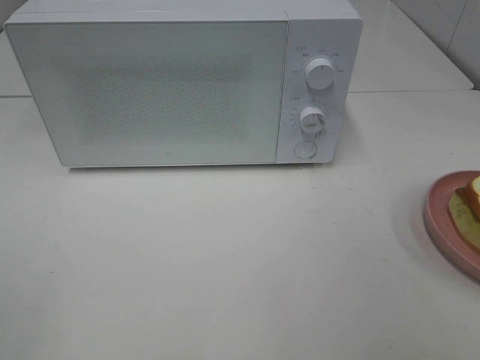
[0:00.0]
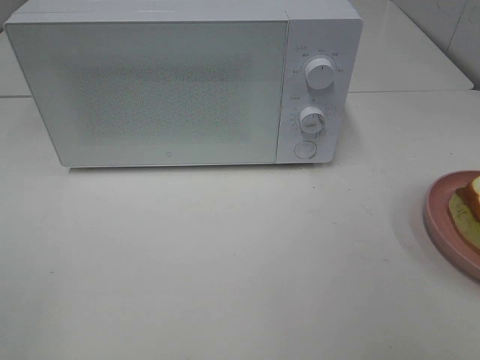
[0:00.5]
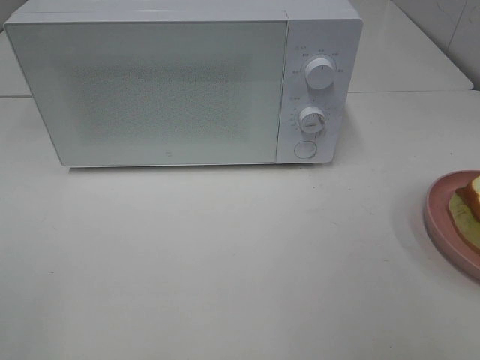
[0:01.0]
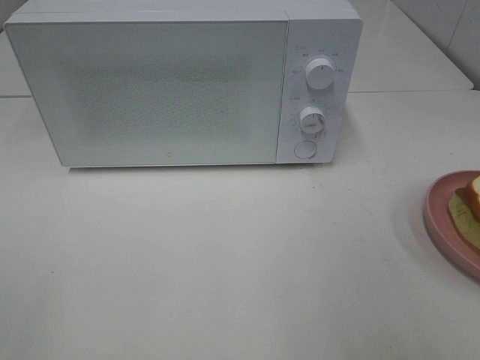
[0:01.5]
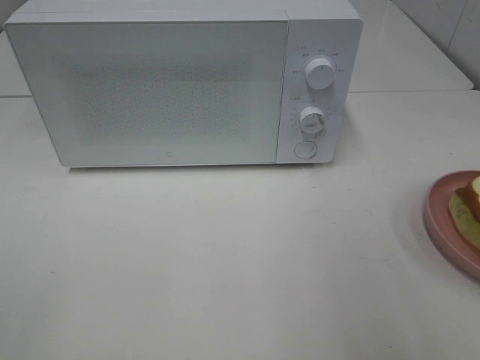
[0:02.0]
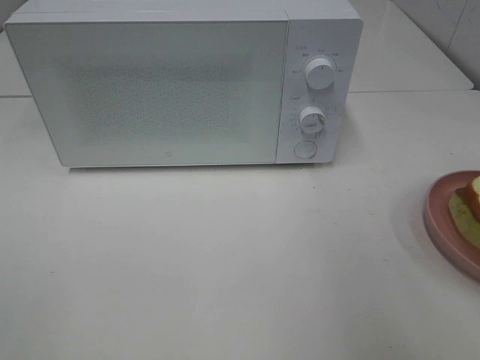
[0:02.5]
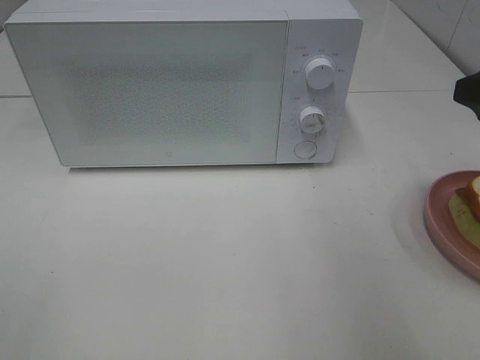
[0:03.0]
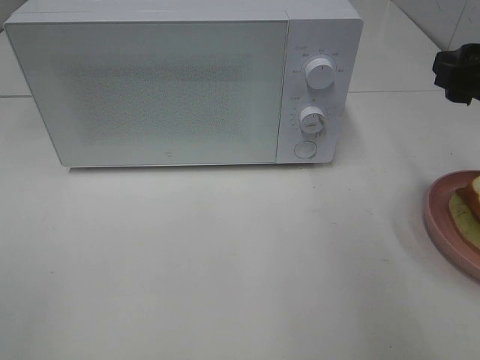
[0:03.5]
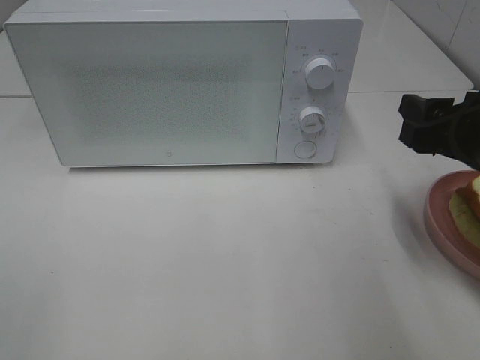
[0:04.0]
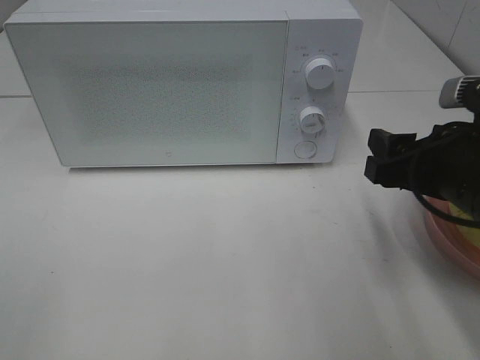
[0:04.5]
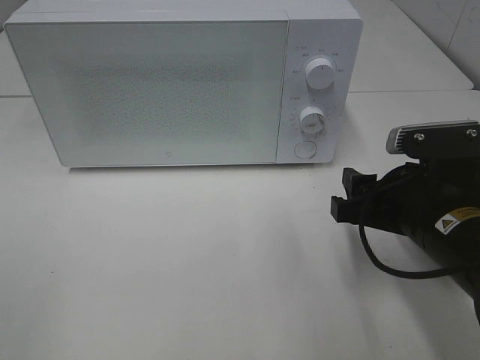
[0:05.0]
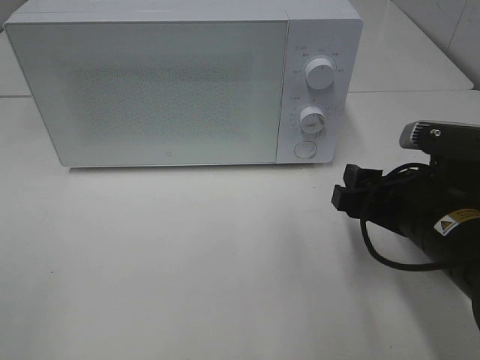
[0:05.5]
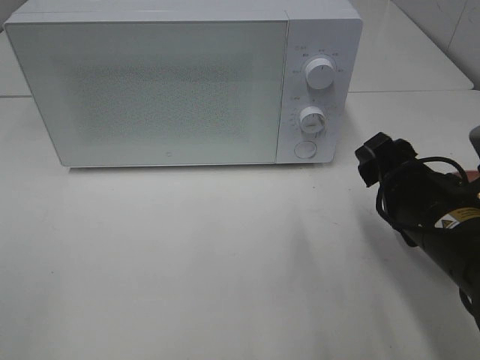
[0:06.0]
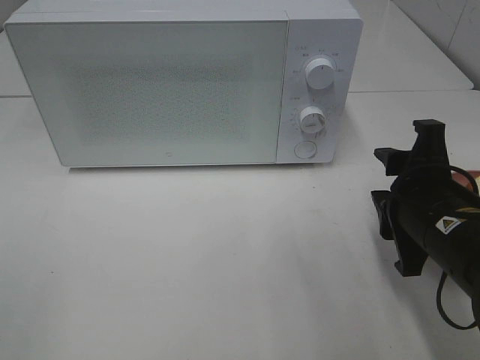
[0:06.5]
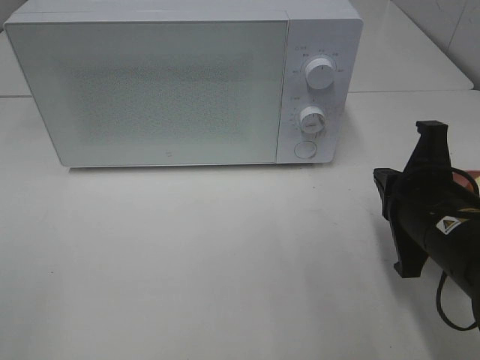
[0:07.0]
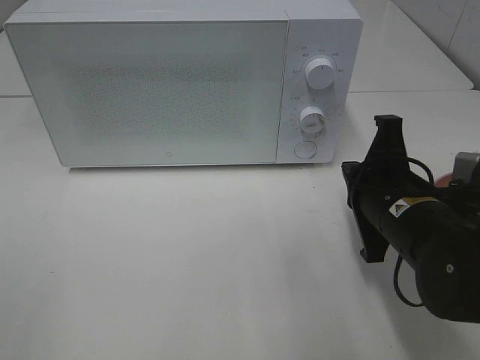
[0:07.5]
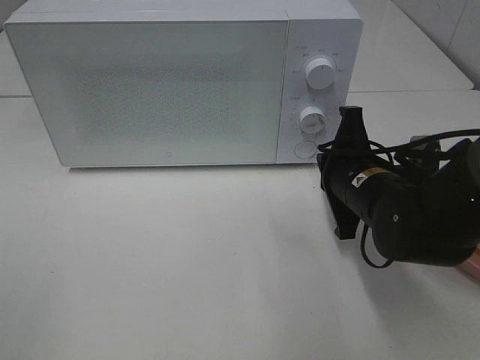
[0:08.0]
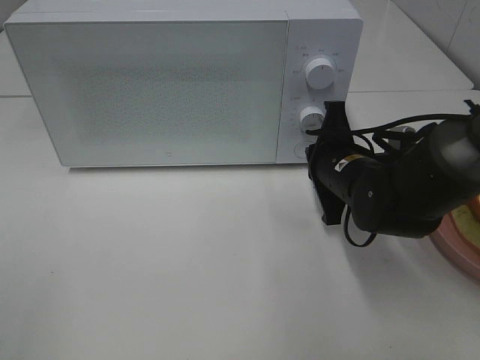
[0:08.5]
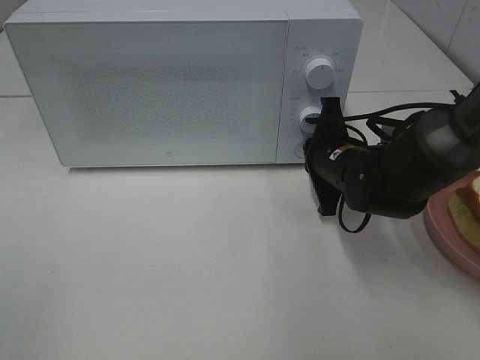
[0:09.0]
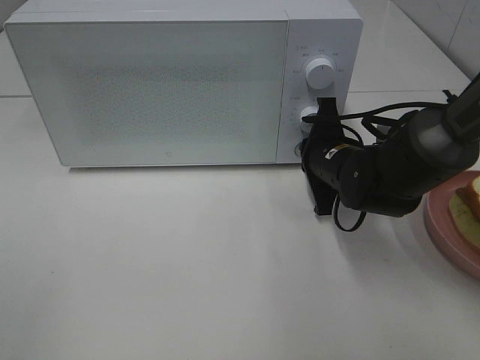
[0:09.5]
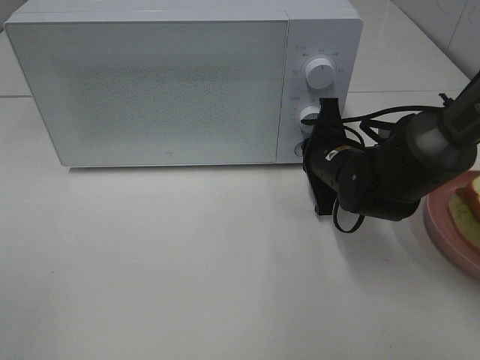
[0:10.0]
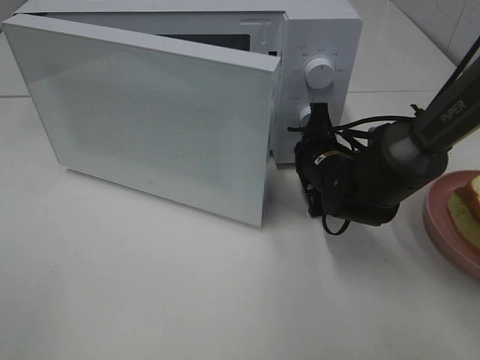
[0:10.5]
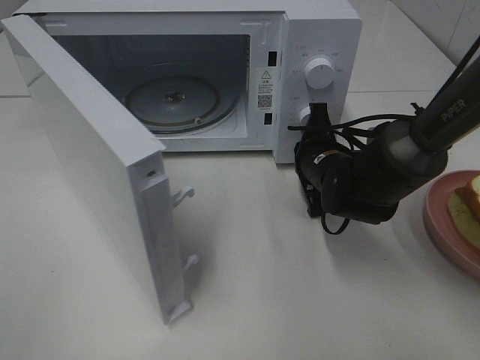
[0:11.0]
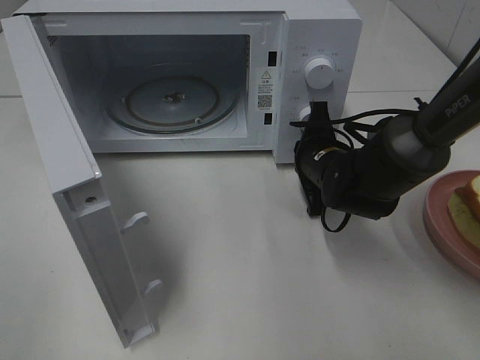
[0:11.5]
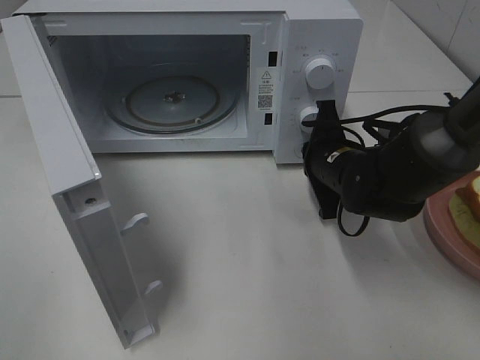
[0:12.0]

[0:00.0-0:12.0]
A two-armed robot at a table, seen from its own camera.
Task of the whole recording: Heat Sandwich.
0:02.0 to 0:04.0: The right gripper moves downward and forward, roughly 15 cm.
0:04.0 to 0:06.0: The right gripper moves downward and to the left, about 10 cm.
0:06.0 to 0:08.0: The right gripper goes some 10 cm forward, and closes up.
0:08.0 to 0:10.0: The right gripper is displaced forward by about 5 cm.

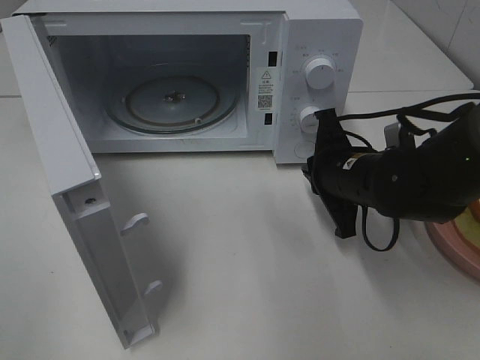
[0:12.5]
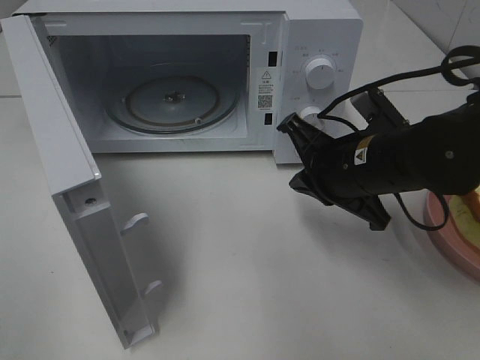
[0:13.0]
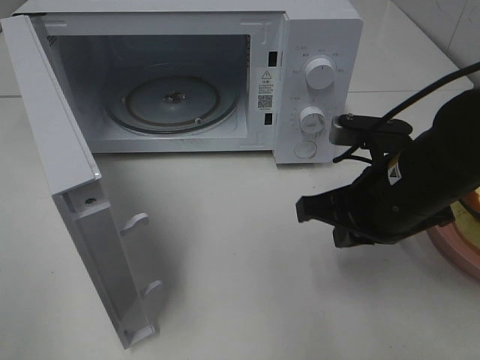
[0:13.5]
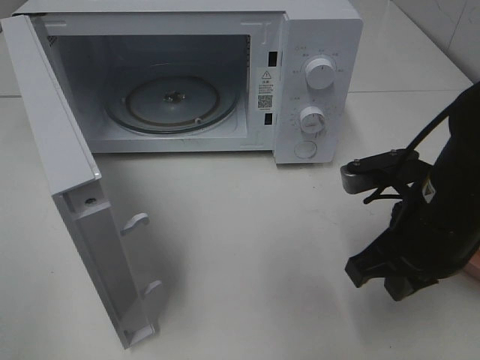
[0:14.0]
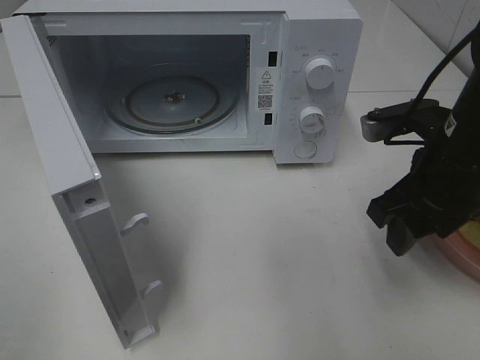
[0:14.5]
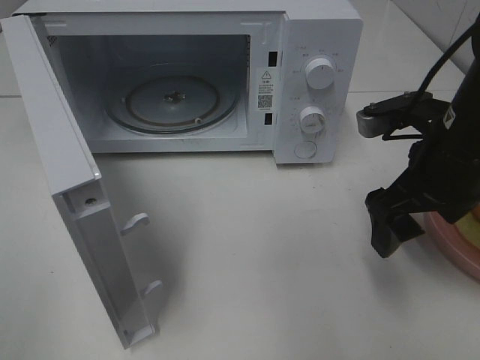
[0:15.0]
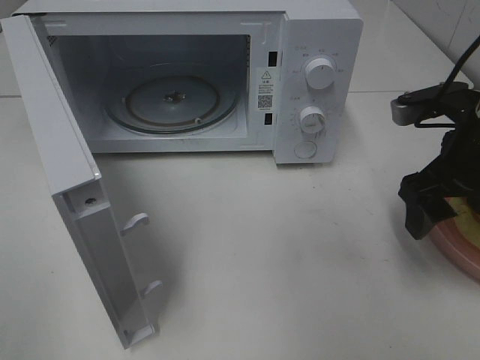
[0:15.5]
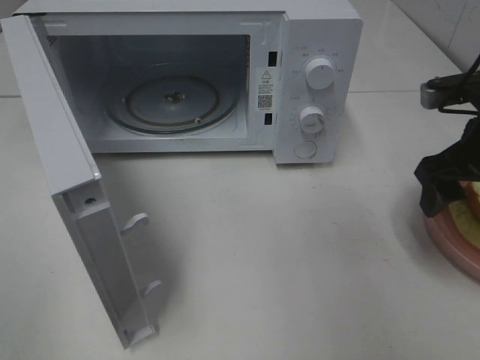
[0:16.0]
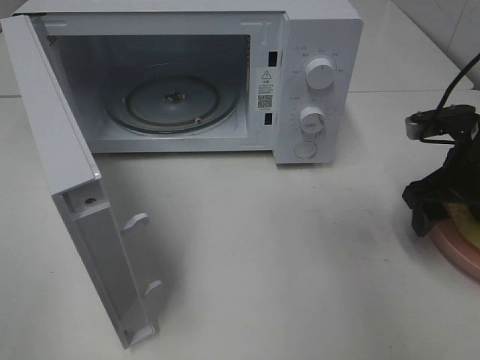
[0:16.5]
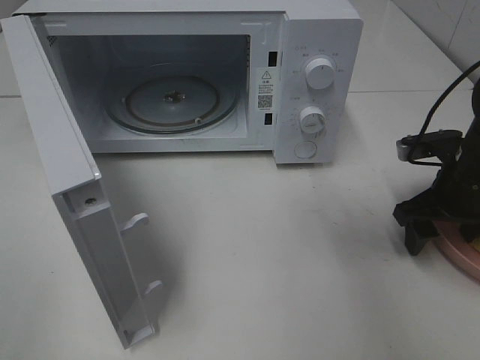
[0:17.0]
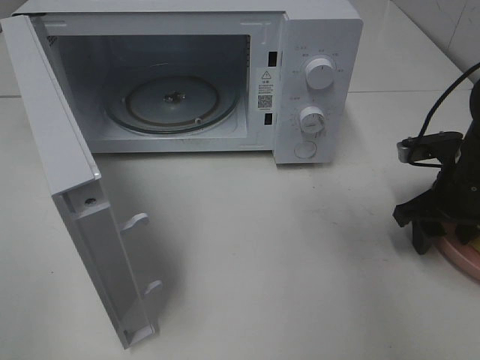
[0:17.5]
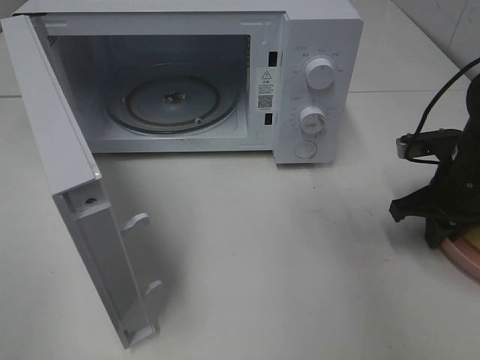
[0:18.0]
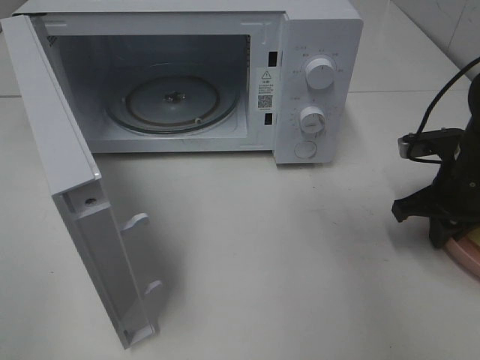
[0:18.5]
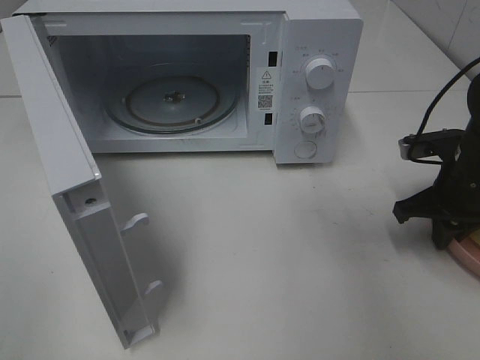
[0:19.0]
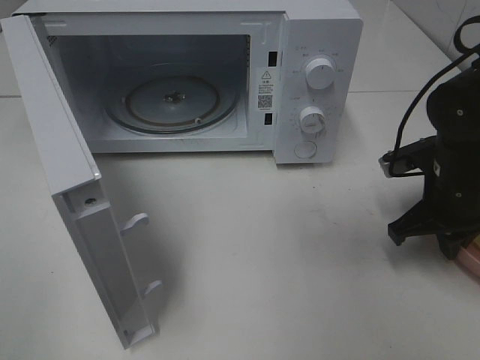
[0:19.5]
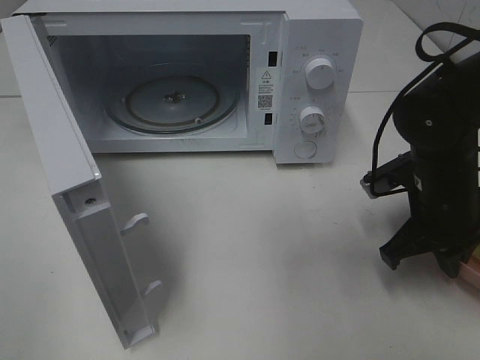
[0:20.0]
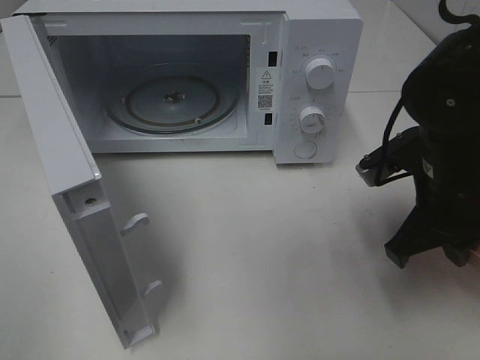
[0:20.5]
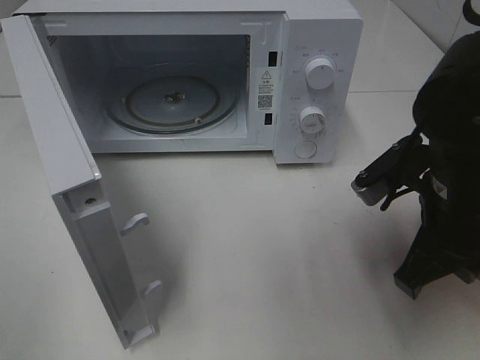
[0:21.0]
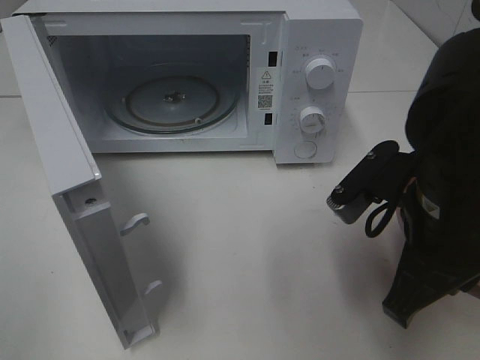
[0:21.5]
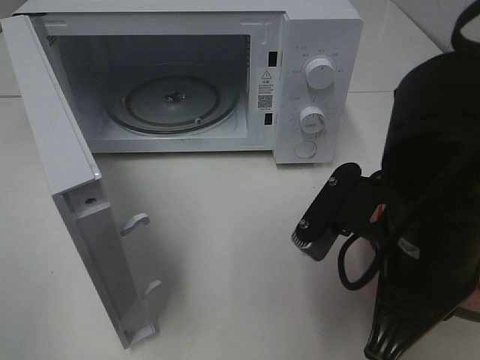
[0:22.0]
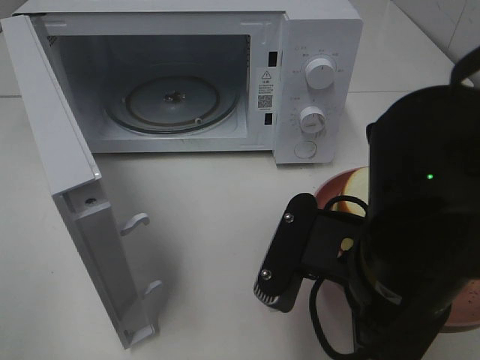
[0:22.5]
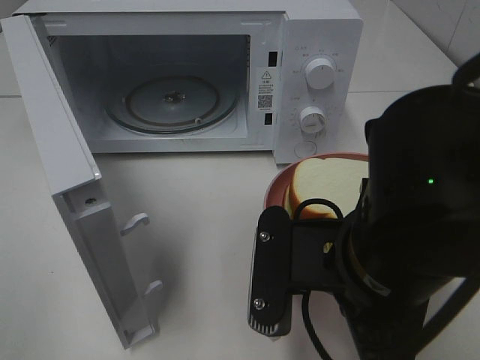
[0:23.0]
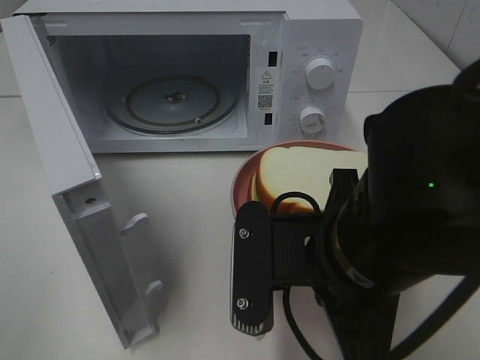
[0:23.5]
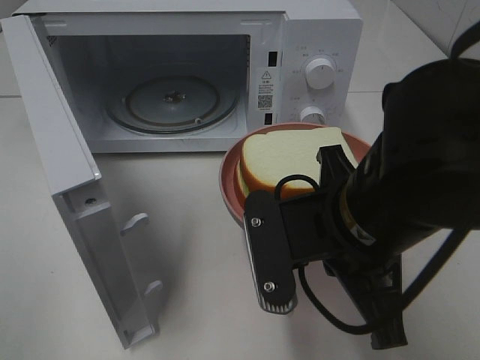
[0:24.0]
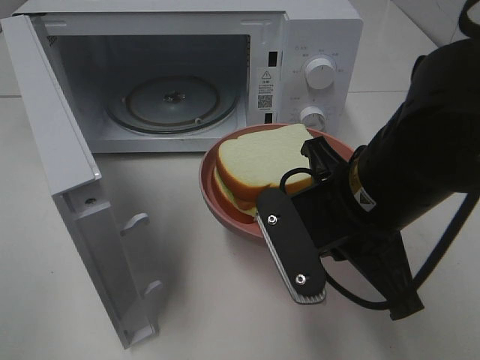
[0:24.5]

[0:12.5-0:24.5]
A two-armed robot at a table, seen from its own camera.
Task of the whole recording: Heat Sandwich.
Step, 0:13.0 to 0:18.5: Right hand: grab the plate with the sandwich.
0:12.5 to 0:14.5: The right gripper is displaced upward, to the right and backward by some 10 cm, and opens its fingers.
0:14.5 to 0:16.5: The right gripper is displaced to the right and forward by about 10 cm.
0:16.5 to 0:18.5: The right gripper closes.
0:18.5 to 0:20.5: The right gripper heads to the left, backward and upward, covering roughly 10 cm.
0:20.5 to 0:22.5: The right gripper moves backward and to the left, about 15 cm.
0:22.5 to 0:24.5: The right gripper shifts some 5 cm forward.

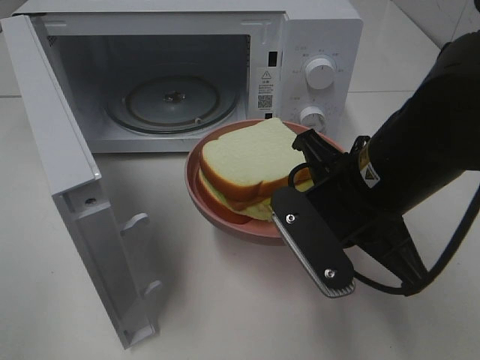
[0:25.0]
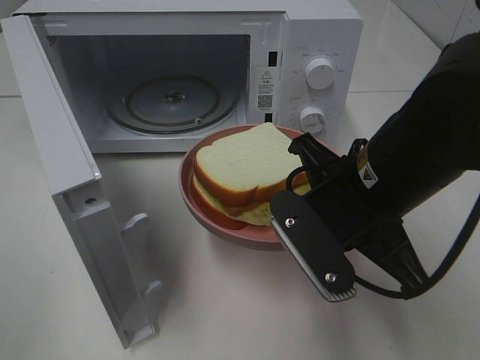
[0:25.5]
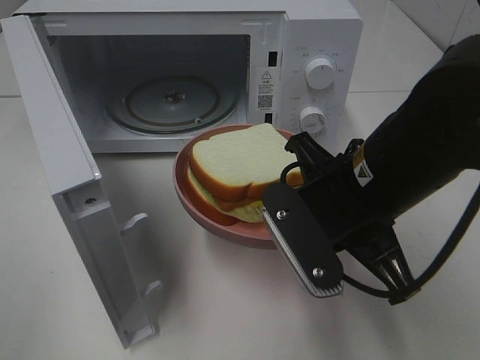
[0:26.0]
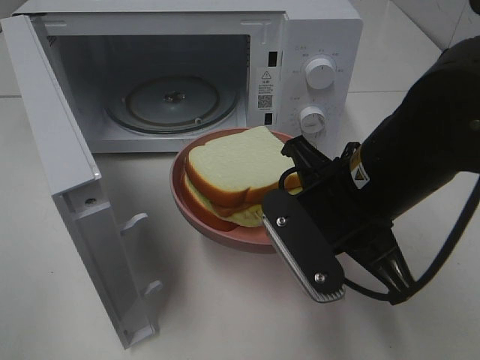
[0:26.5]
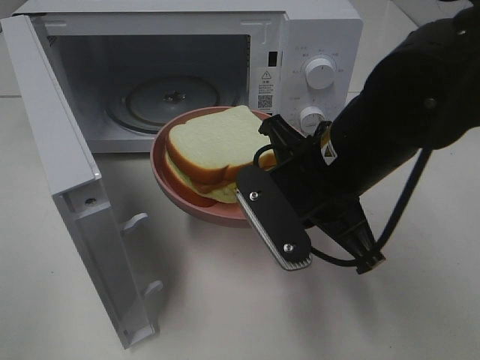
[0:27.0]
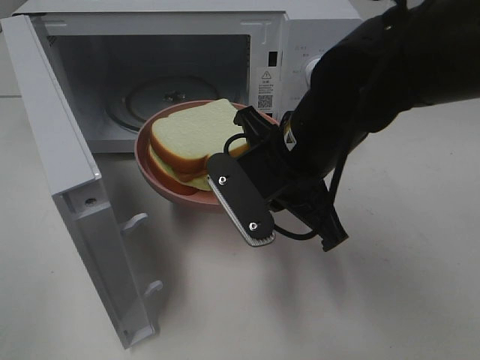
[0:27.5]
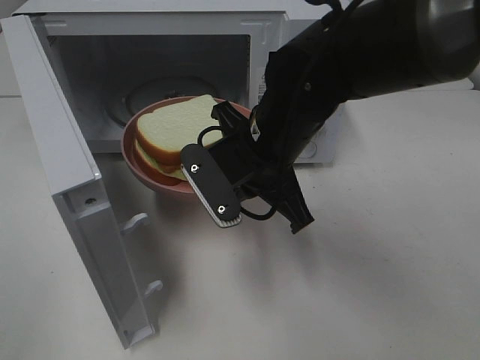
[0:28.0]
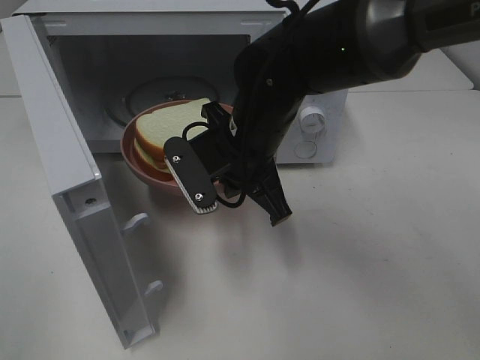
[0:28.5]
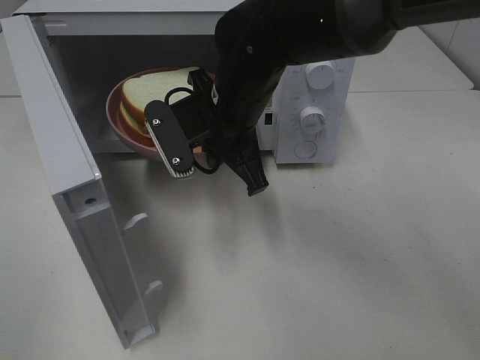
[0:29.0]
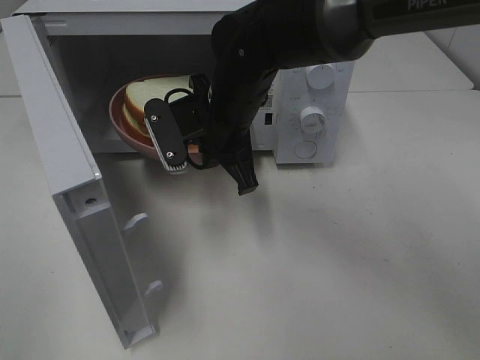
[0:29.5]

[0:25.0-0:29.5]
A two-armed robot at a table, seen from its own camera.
Task of the whole recording: Heat Sandwich.
0:25.0 to 0:27.0: The grippers make only small movements.
0:27.0 to 0:29.5: The right gripper heads forward and to the left, covering some 15 cm.
